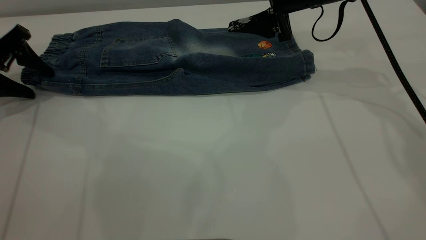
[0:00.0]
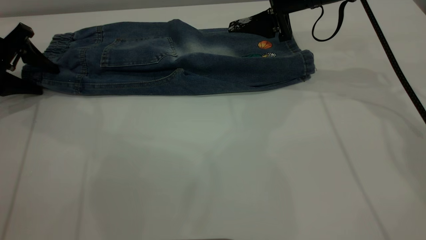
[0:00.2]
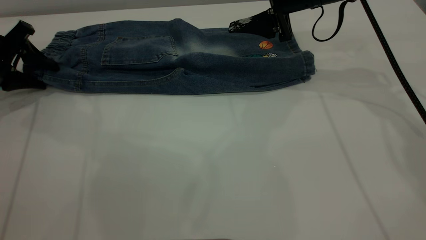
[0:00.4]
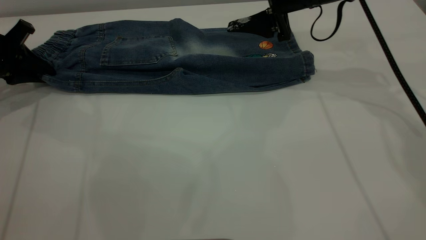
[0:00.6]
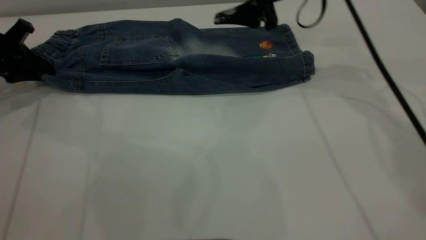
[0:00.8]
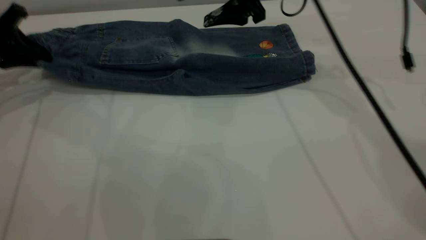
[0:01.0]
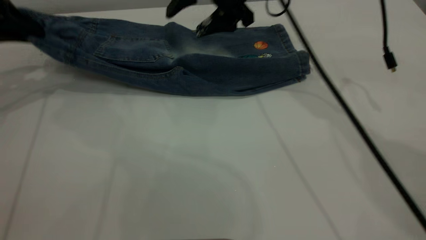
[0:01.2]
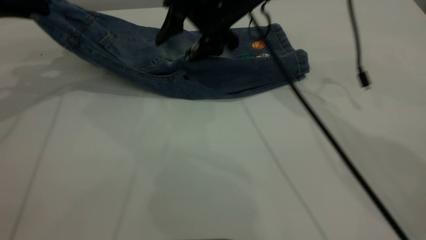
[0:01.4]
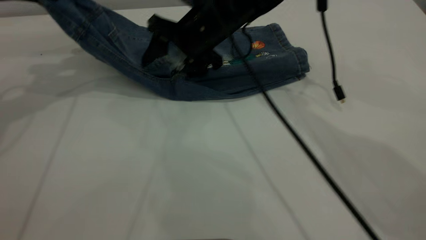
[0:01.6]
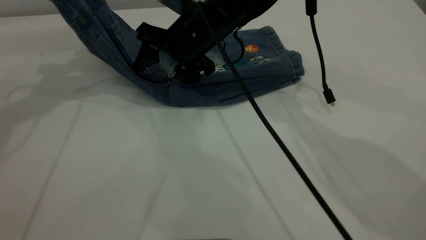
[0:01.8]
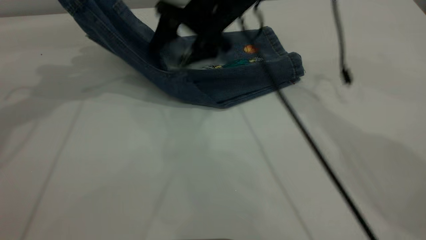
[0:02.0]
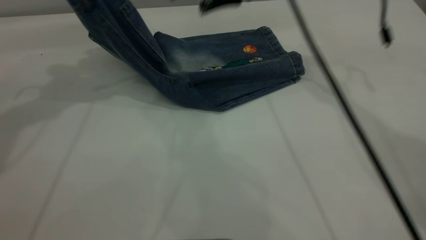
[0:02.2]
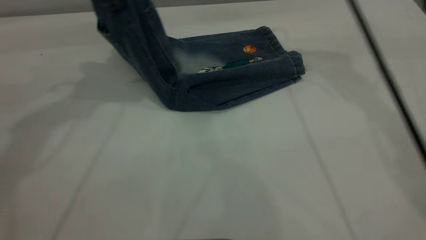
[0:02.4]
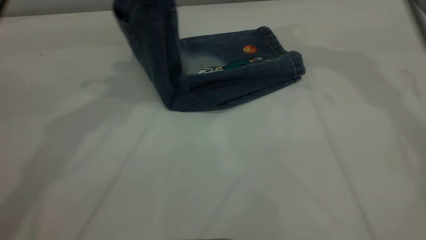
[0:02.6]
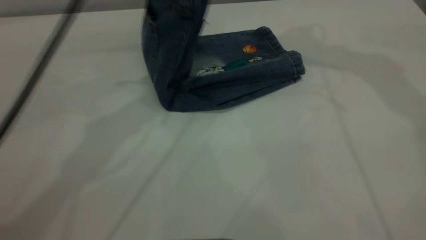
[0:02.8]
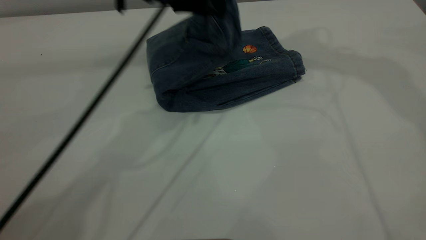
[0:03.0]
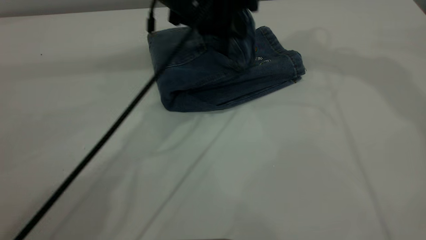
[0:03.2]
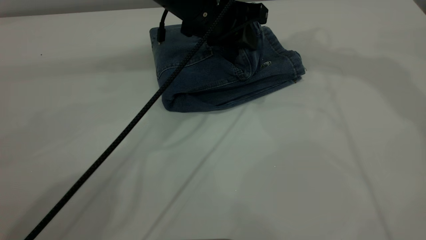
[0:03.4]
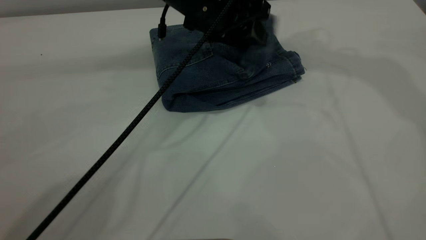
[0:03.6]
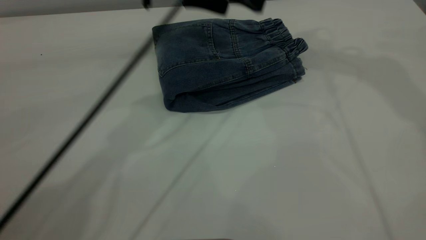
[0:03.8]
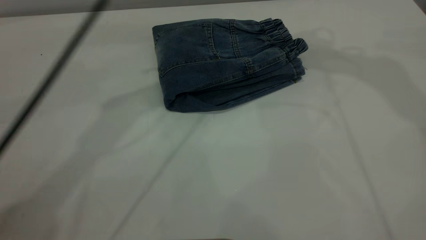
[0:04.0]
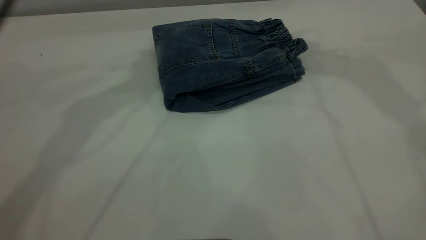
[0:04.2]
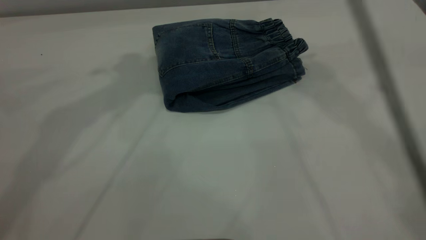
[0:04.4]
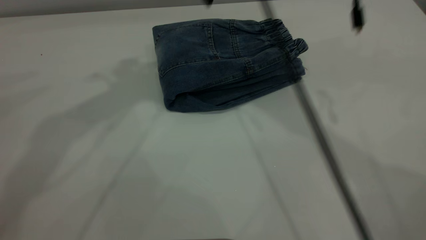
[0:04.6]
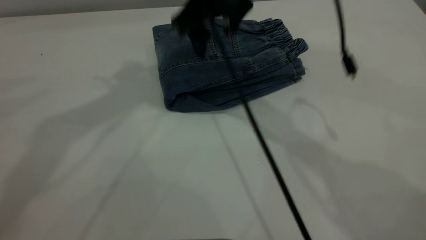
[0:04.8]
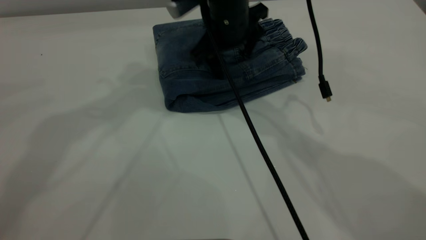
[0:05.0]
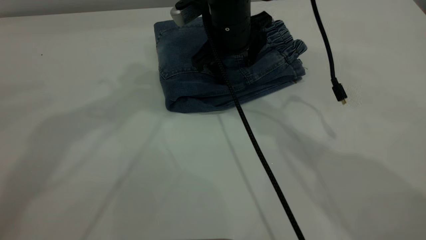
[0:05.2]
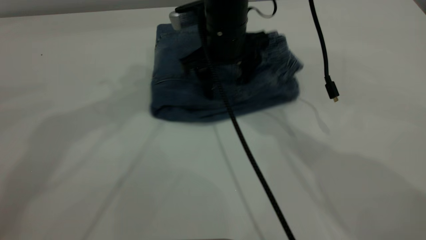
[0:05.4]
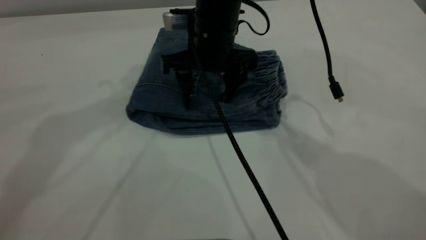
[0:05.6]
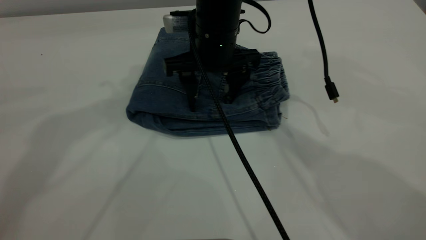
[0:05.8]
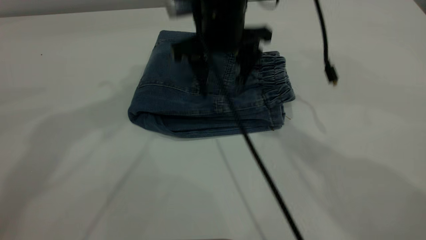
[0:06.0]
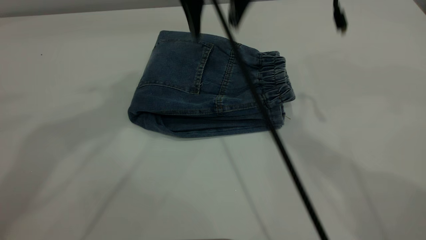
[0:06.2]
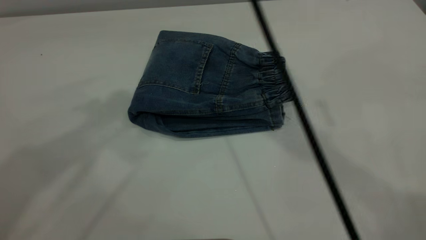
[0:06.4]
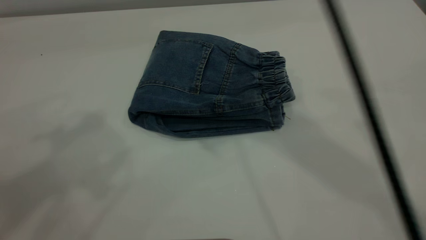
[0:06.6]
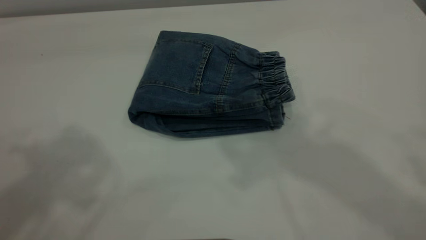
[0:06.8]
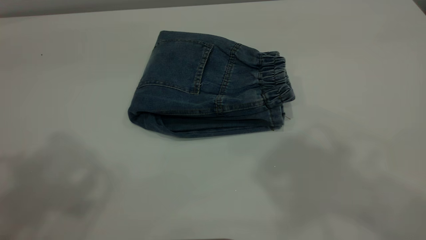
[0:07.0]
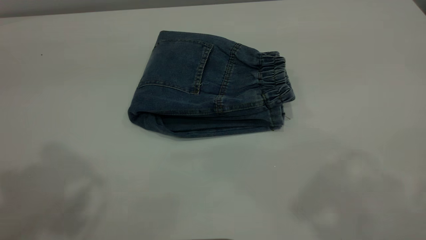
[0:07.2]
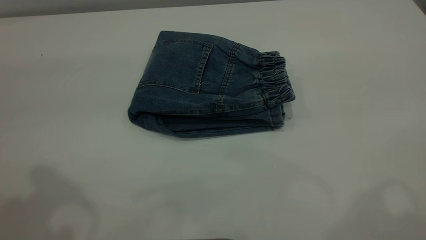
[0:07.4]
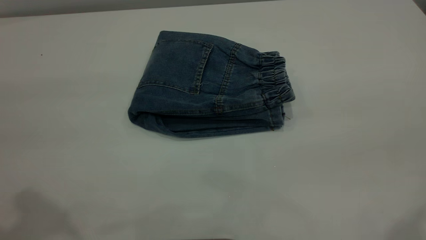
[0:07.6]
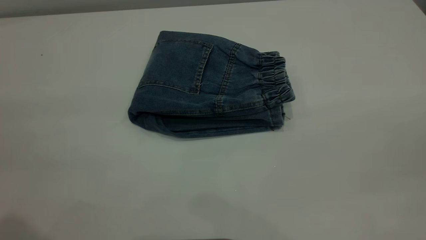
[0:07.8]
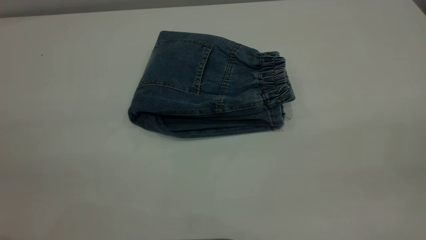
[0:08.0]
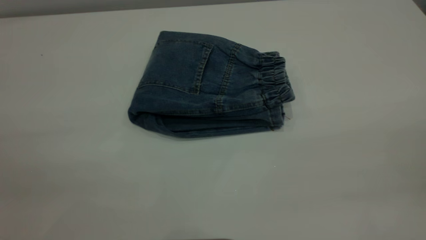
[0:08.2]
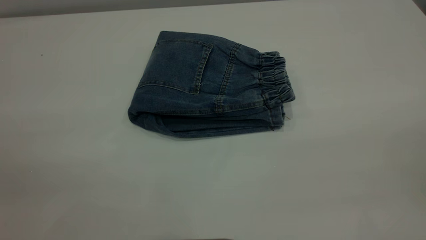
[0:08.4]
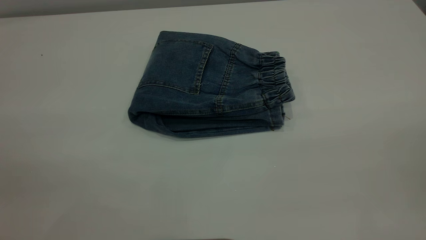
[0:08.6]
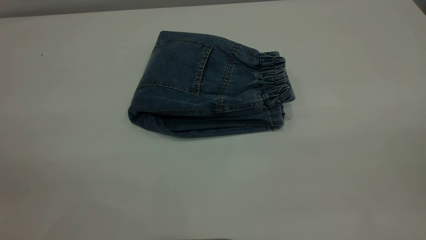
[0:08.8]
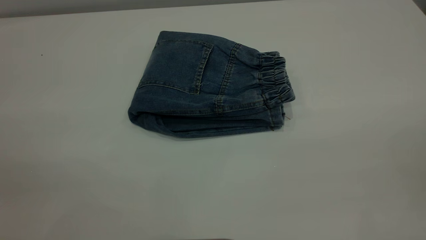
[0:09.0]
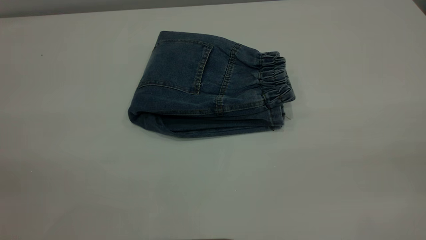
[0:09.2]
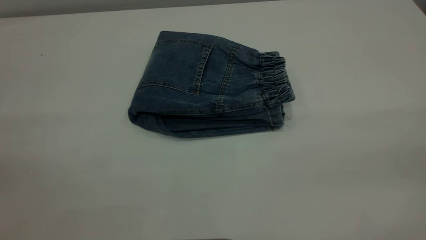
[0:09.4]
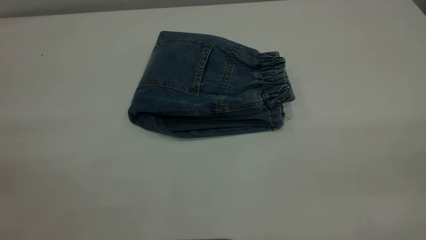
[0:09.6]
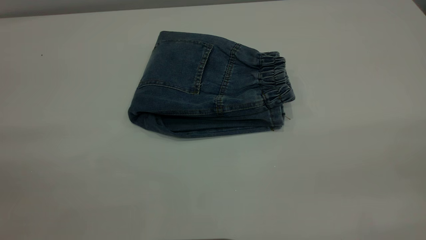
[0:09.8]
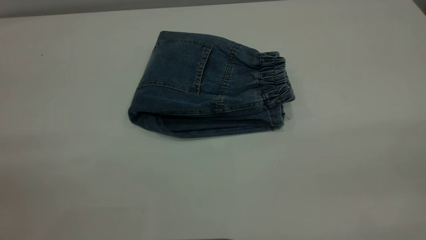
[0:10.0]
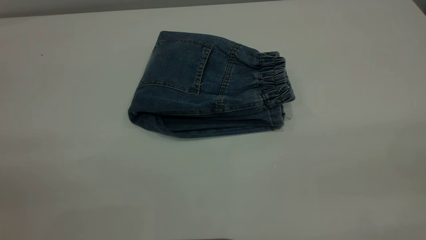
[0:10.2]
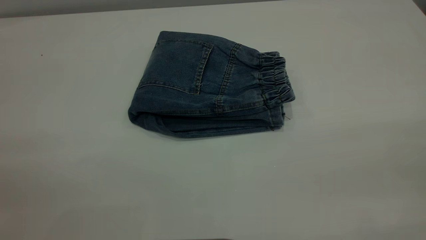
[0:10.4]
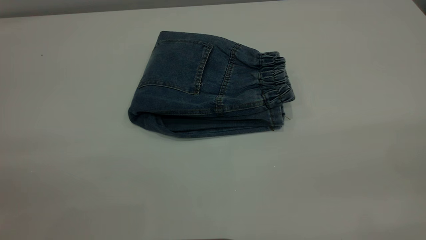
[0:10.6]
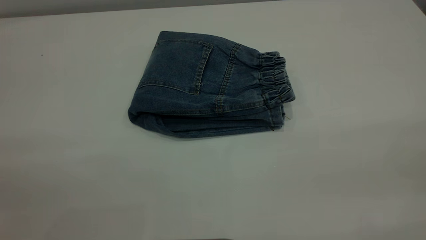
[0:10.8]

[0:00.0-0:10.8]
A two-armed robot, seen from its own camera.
Step, 0:00.0 to 0:04.0: Fold the pants from left to right.
0:00.0 to 0:01.6: The right gripper is displaced to the left by approximately 15 cm. Meanwhile the left gripper heads upward and to the right, covering about 15 cm, and closes up.
0:01.6 to 0:03.0: The left gripper goes approximately 25 cm to the right, while the right gripper goes approximately 35 cm upward and to the right.
0:03.0 to 0:04.6: The right gripper heads downward and to the left, covering some 20 cm; the left gripper heads upward and to the left, covering some 25 cm, and opens.
0:04.6 to 0:06.2: The right gripper reaches about 10 cm downward, then returns.
0:06.2 to 0:07.8: The right gripper is displaced backward and to the right by some 40 cm. The left gripper is displaced backward and downward by about 25 cm.

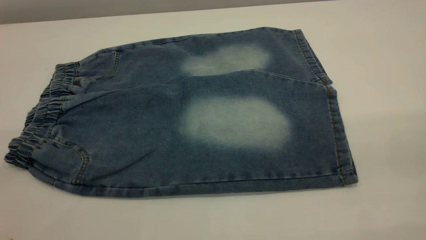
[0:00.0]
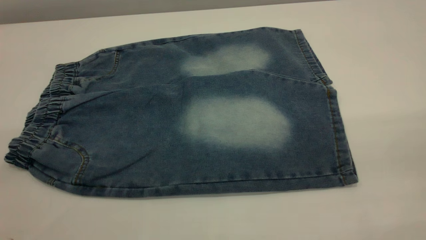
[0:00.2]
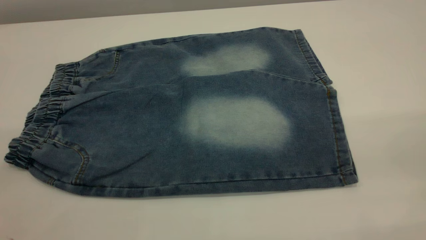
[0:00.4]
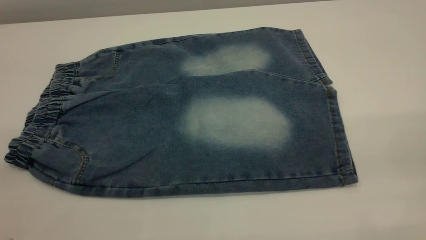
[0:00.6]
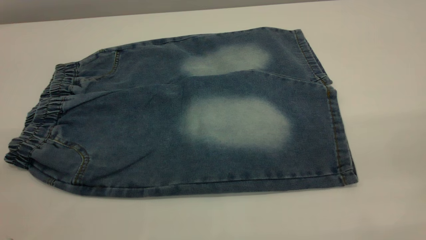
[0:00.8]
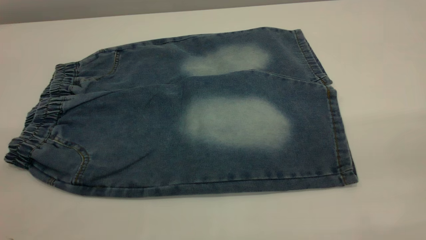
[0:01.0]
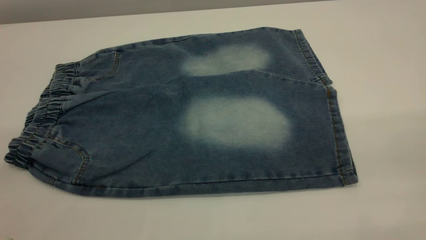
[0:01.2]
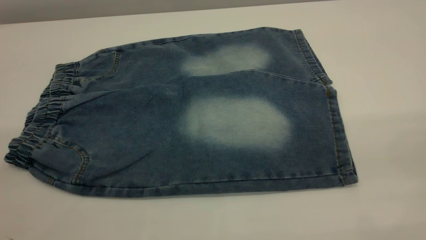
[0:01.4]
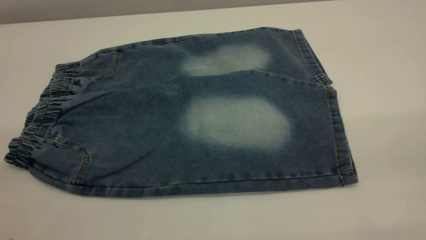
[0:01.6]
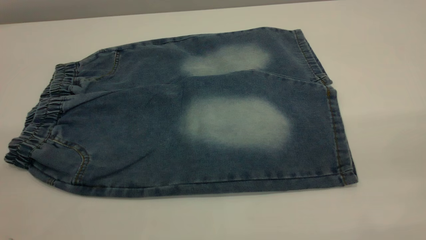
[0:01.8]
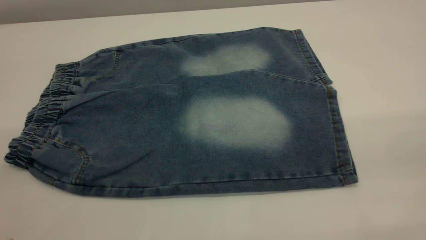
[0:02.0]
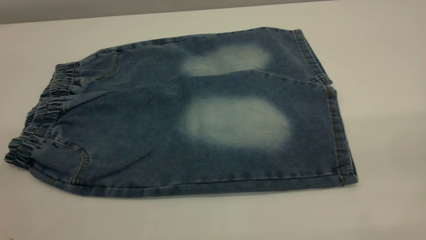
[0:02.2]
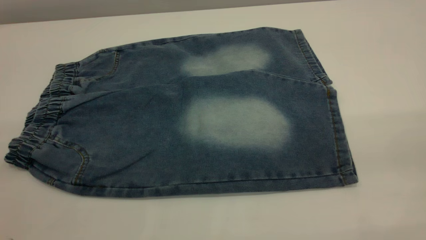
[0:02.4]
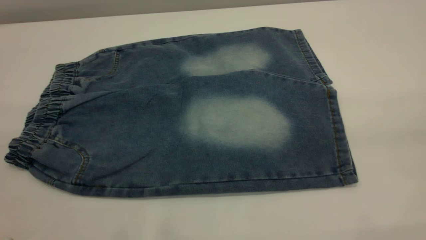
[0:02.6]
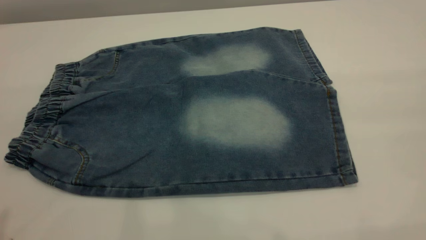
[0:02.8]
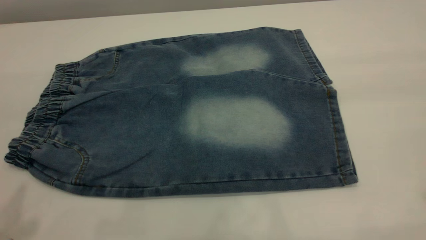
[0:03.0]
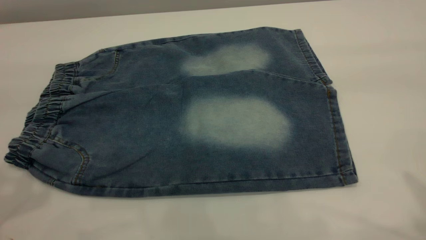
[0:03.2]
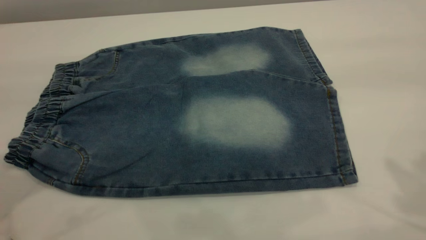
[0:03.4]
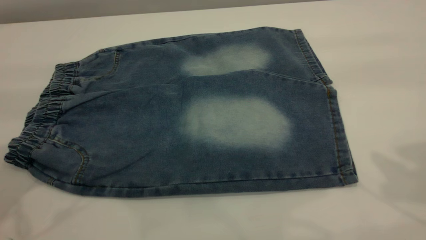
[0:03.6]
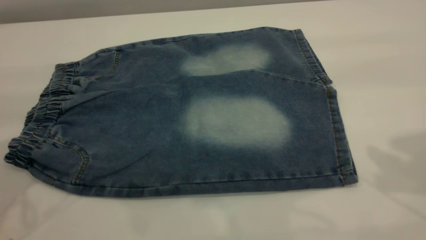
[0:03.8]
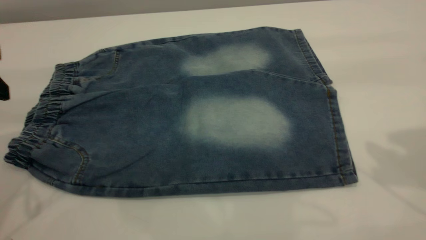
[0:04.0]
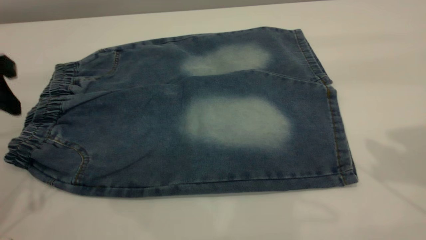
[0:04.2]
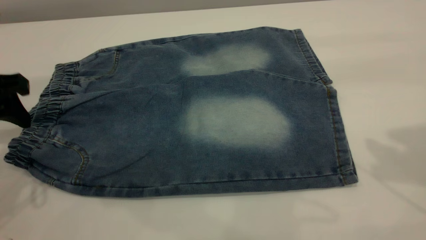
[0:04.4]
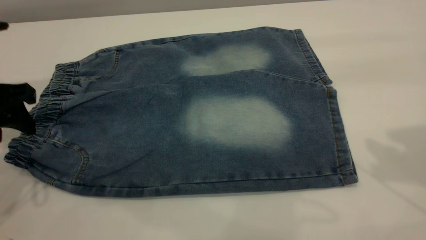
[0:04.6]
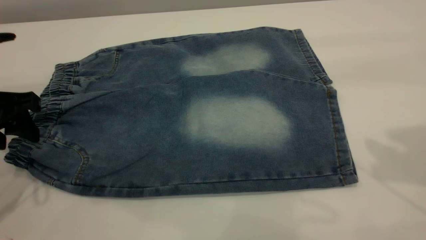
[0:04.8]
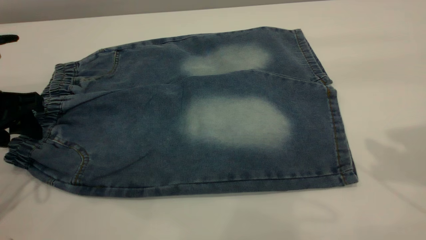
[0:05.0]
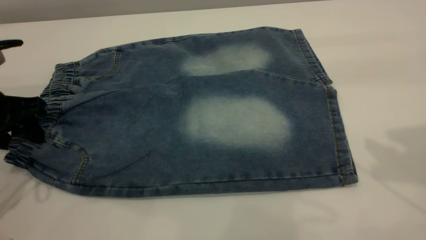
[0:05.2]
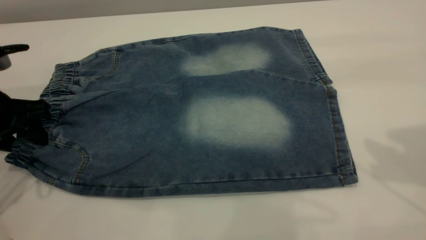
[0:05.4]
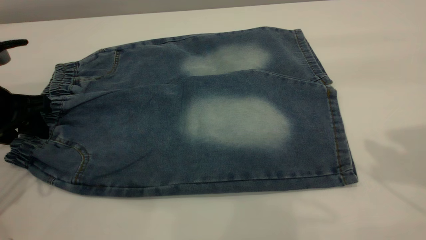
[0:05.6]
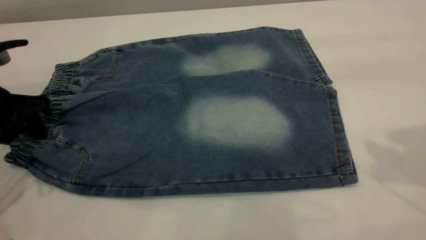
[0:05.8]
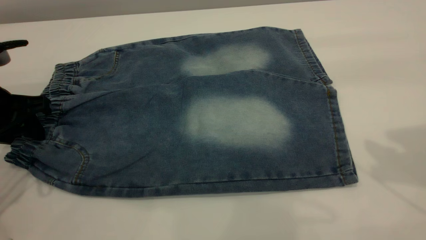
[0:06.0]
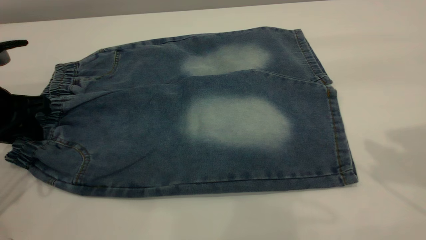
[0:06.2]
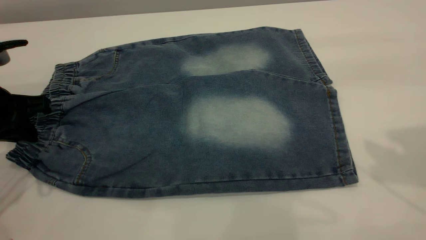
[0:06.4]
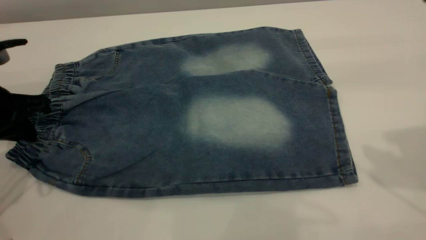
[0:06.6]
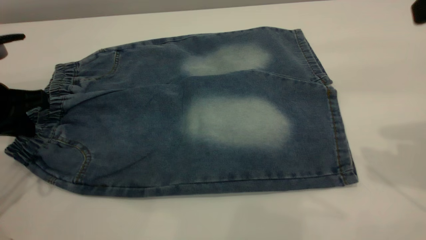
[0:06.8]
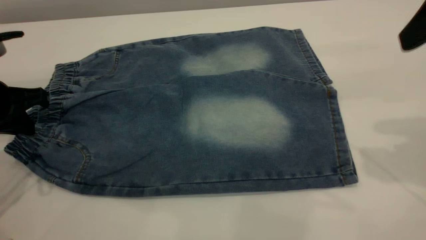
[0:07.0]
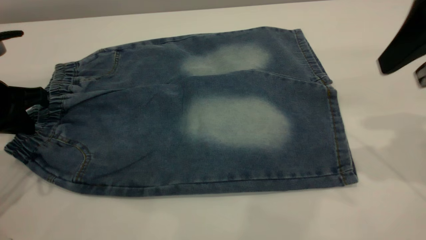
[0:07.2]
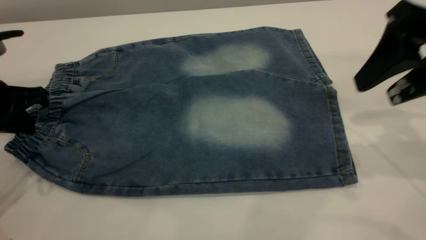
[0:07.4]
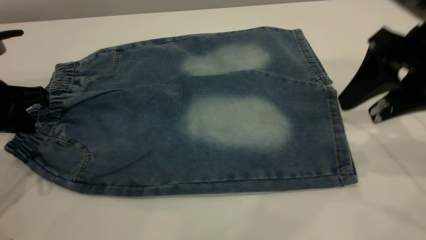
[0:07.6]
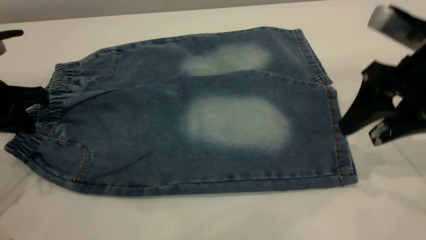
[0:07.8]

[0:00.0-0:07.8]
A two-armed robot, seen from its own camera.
0:00.0 to 0:01.6: Neither gripper changes place.
0:03.2 to 0:04.6: The left gripper shifts roughly 20 cm downward and forward.
0:04.6 to 0:06.2: The left gripper closes up.
0:06.2 to 0:07.8: The right gripper moves downward, approximately 15 cm, while the left gripper closes up.
